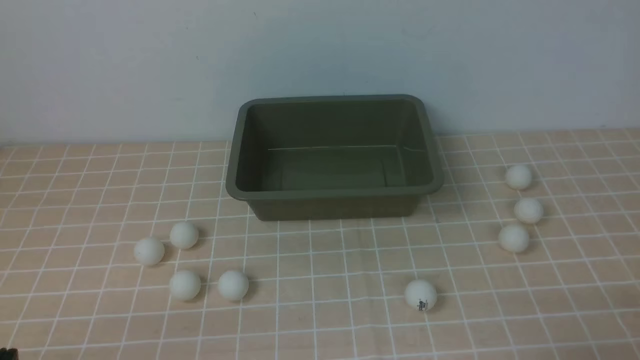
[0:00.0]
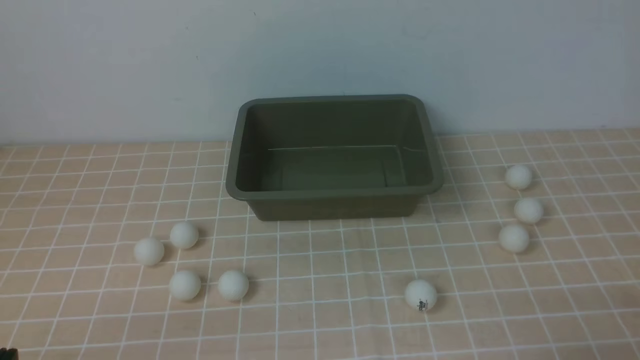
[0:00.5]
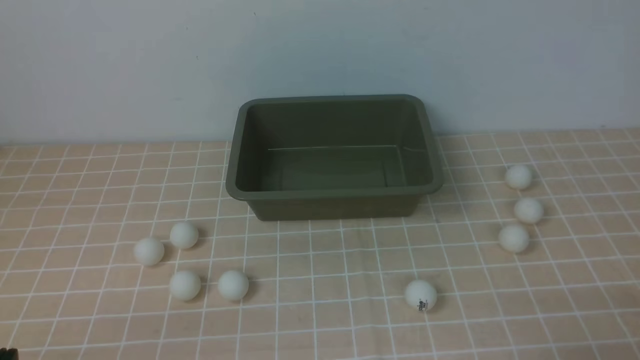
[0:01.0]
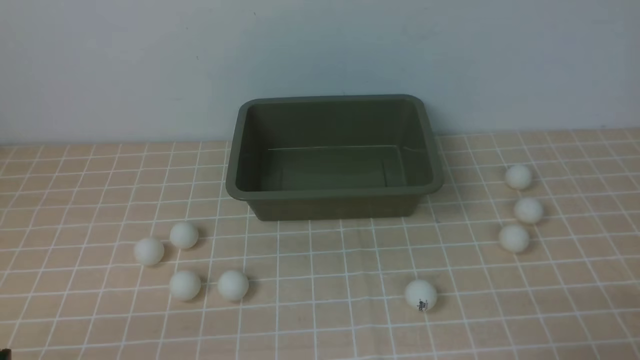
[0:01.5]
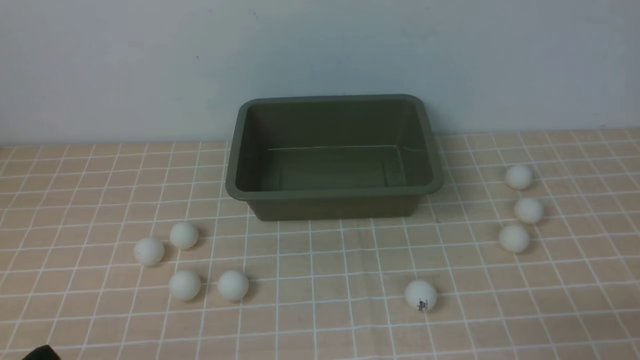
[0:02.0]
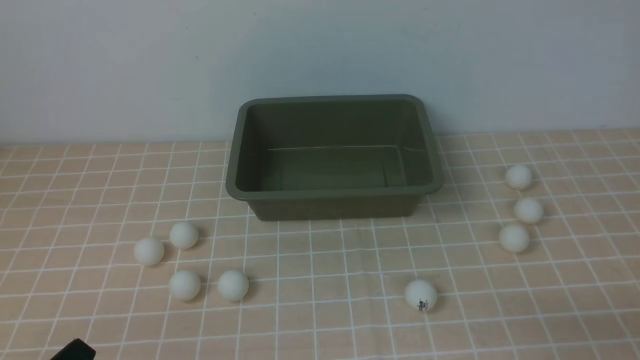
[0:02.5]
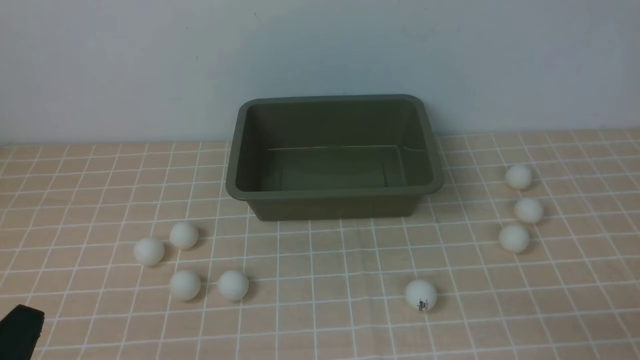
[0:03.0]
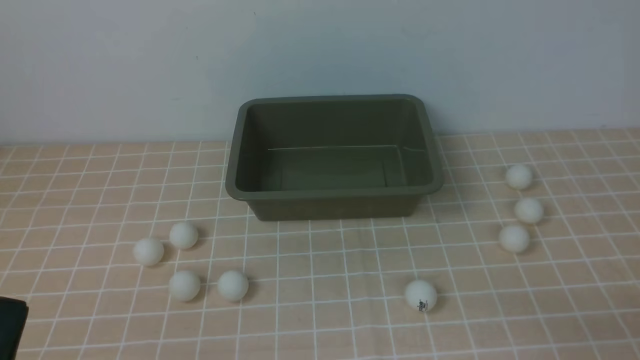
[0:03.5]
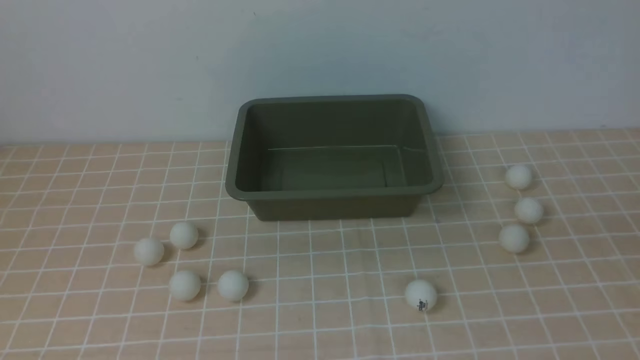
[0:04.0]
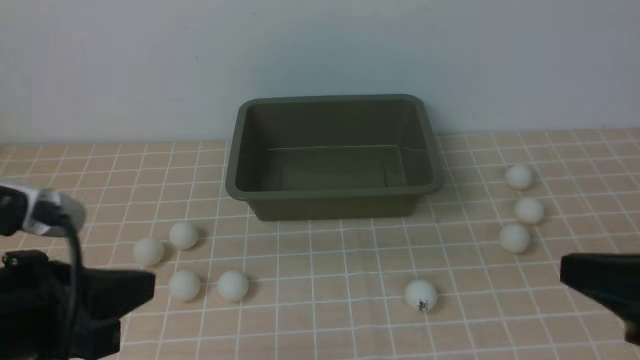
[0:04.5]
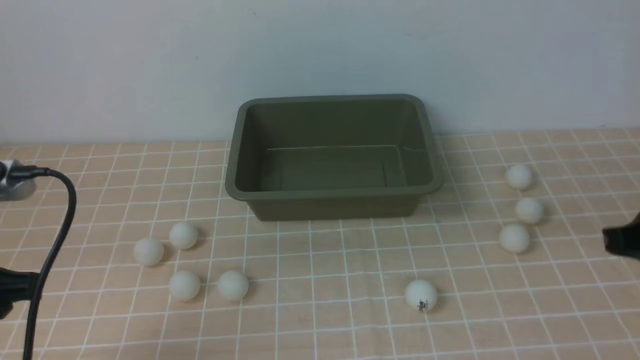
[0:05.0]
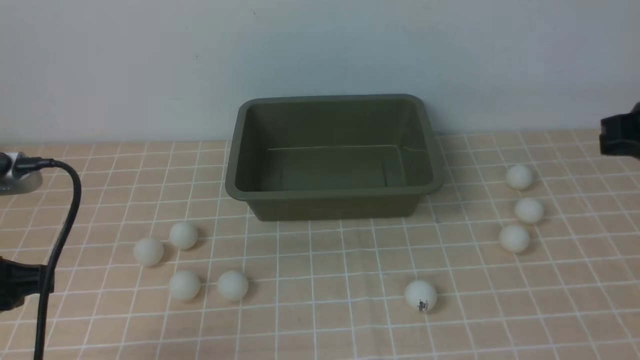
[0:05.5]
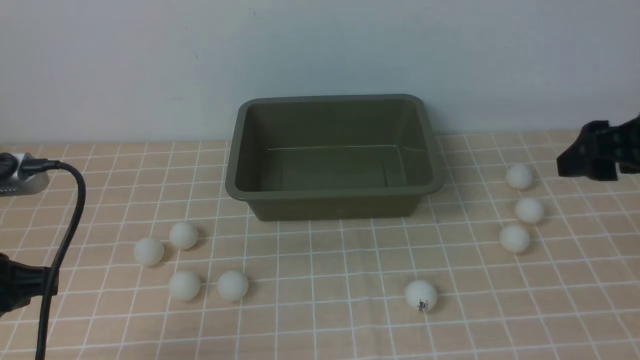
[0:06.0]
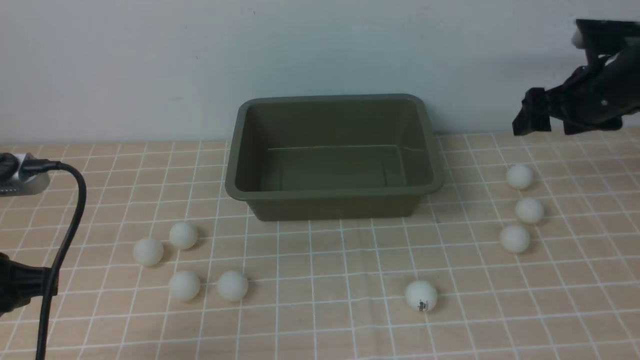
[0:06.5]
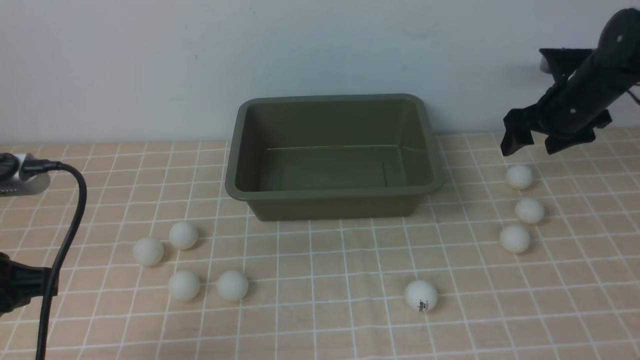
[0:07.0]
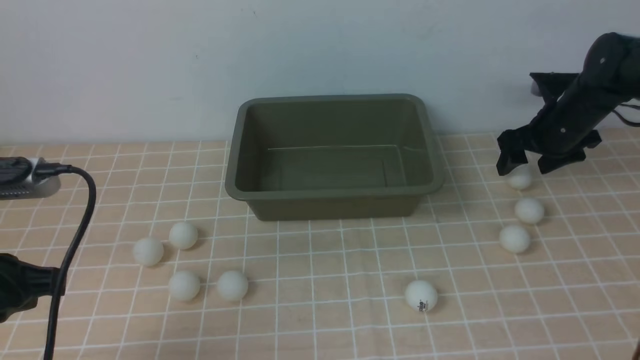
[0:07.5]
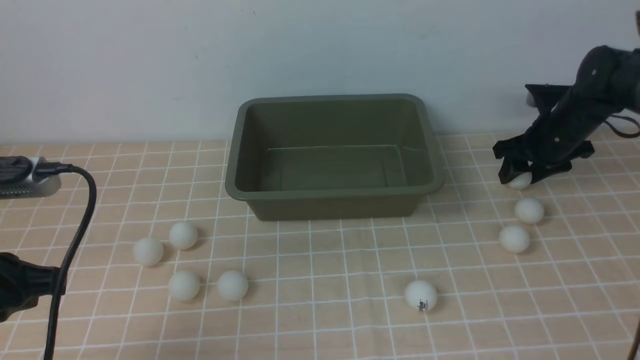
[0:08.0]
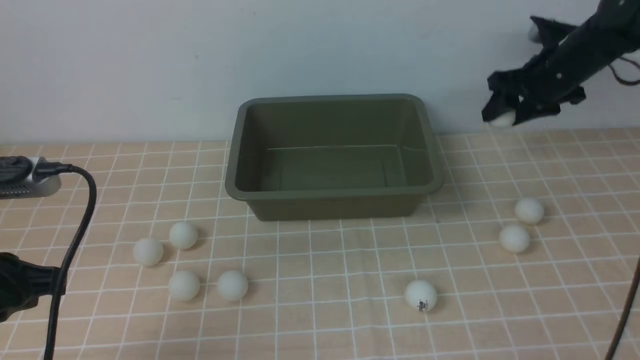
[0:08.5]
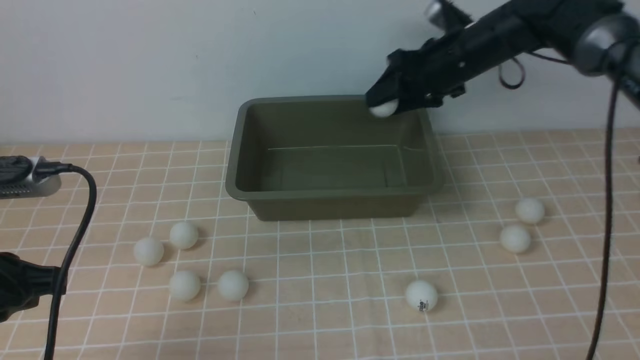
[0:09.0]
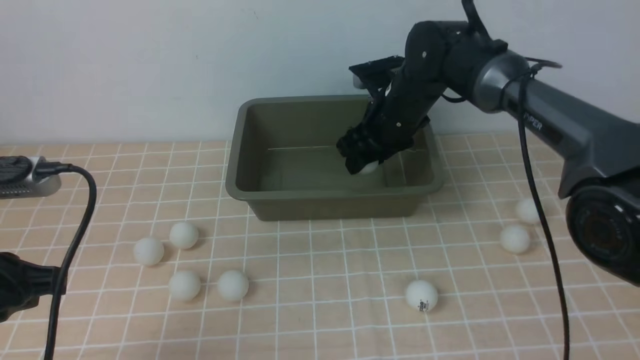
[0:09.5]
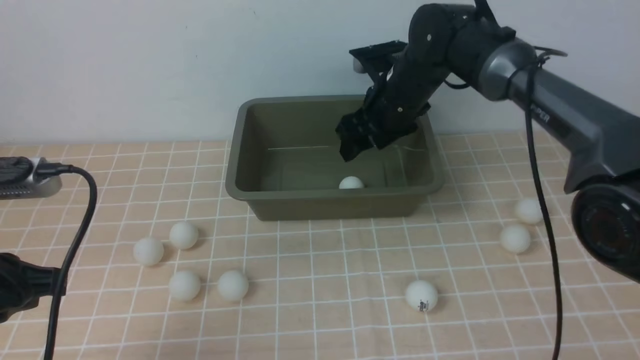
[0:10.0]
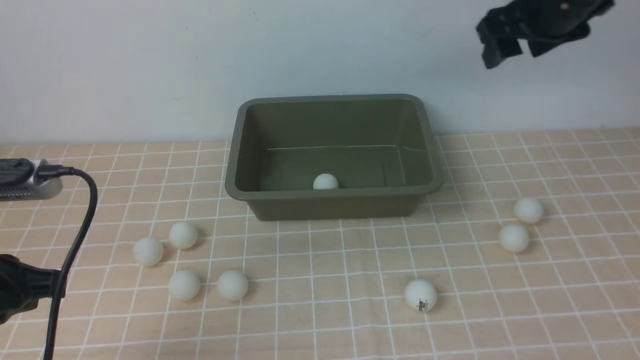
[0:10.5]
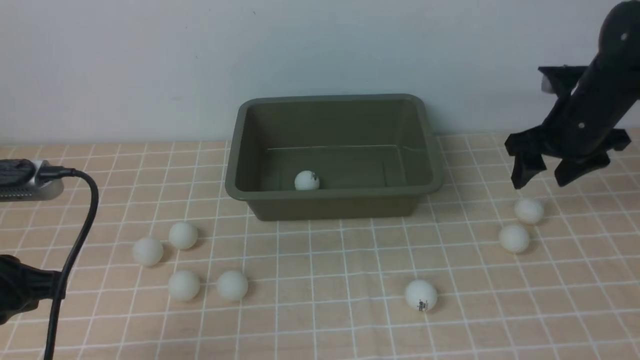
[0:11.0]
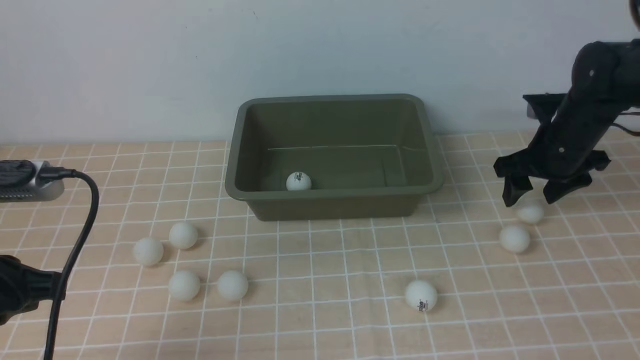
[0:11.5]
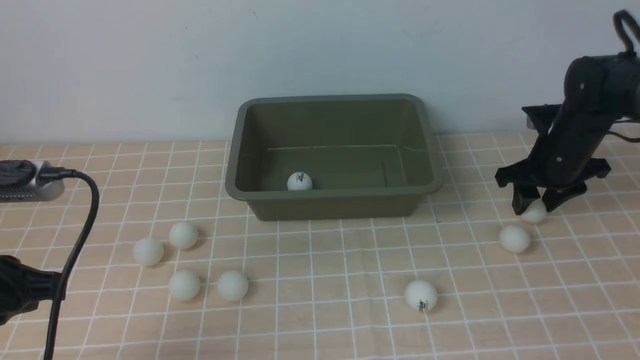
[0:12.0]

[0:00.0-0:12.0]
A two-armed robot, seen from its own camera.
Step, 0:00.0 to 0:08.5: use the right arm to clamp the table tennis ball closest to it.
Step, 0:09.0 to 0:09.5: use the right arm to put the table tennis ball into the box.
0:04.0 to 0:06.0: The right gripper heads forward, covering roughly 25 cm, and opens up. The left gripper travels forward by about 10 cm.
0:06.0 to 0:08.0: The right gripper moves forward and downward, about 25 cm.
0:08.0 to 0:10.0: The right gripper heads to the left and upward, covering some 25 cm.
0:10.0 to 0:12.0: The right gripper is displaced to the right and downward by about 20 cm.

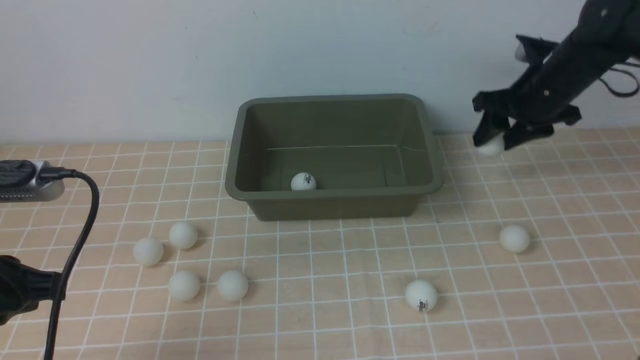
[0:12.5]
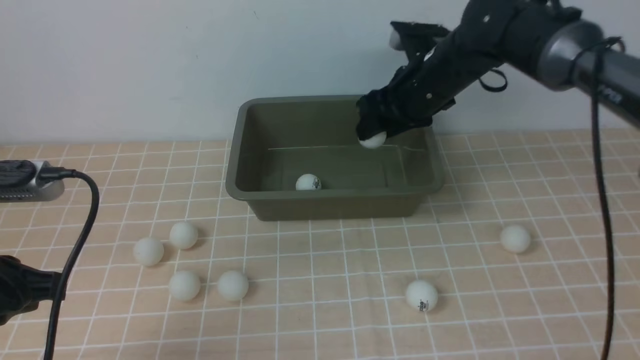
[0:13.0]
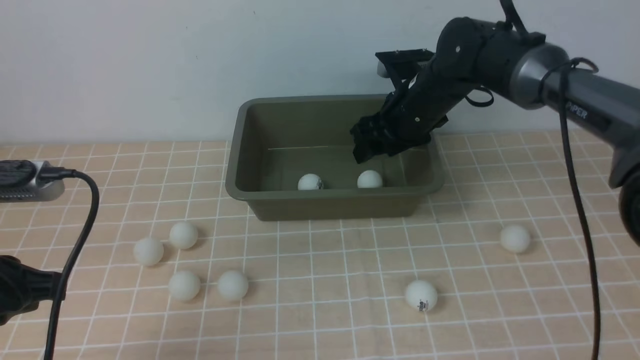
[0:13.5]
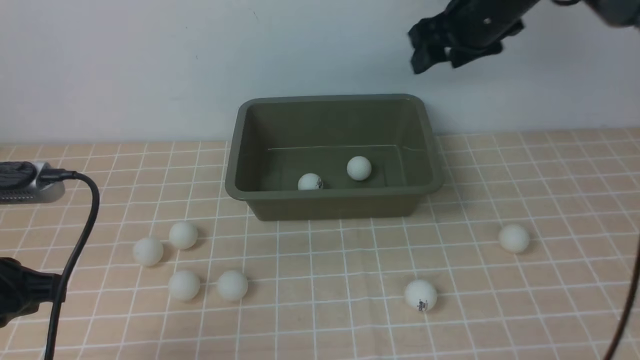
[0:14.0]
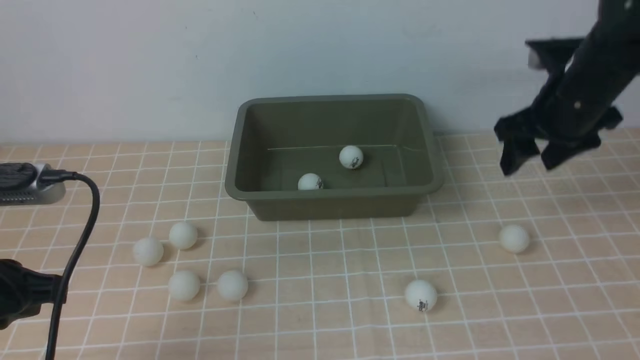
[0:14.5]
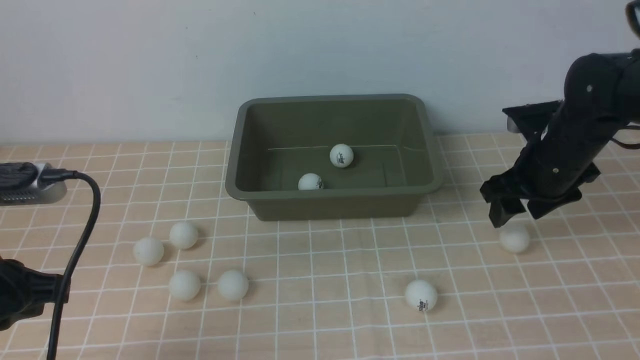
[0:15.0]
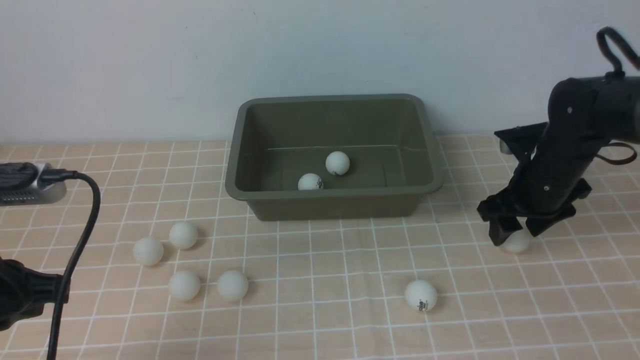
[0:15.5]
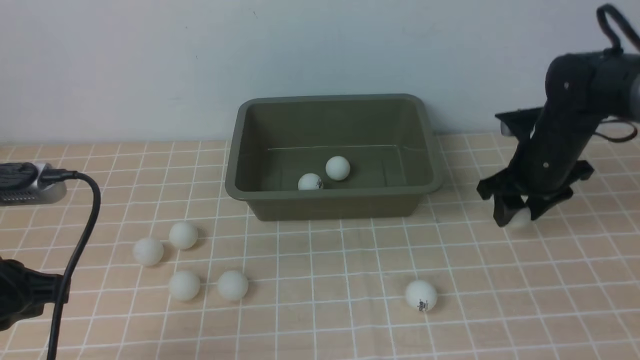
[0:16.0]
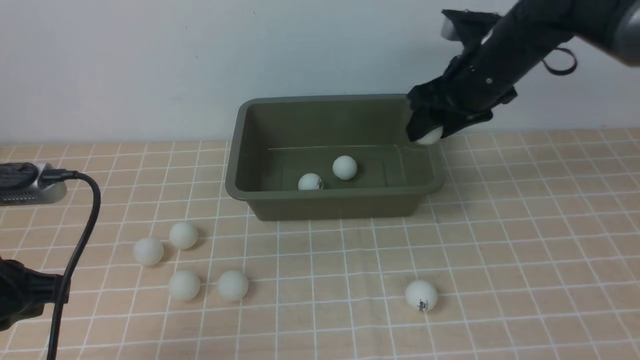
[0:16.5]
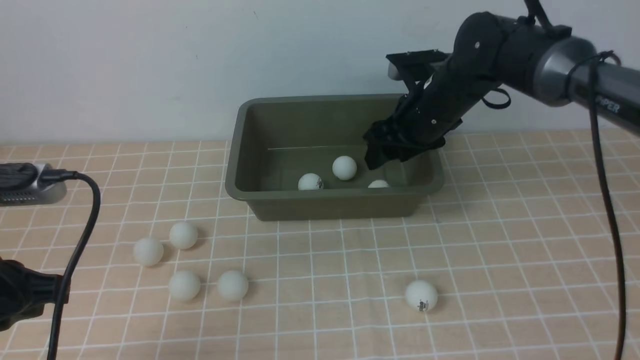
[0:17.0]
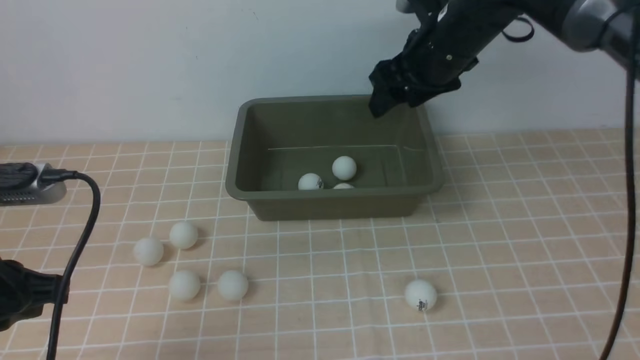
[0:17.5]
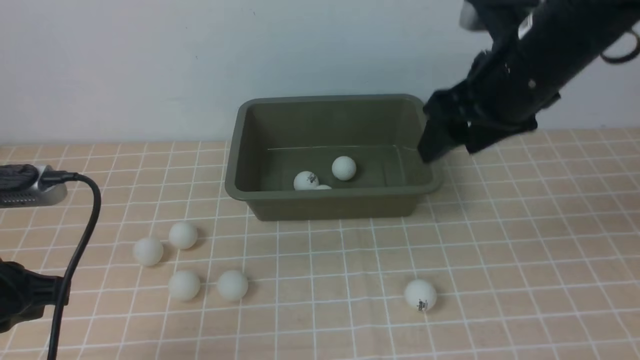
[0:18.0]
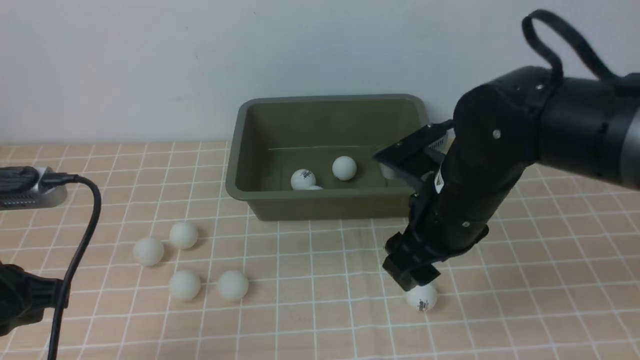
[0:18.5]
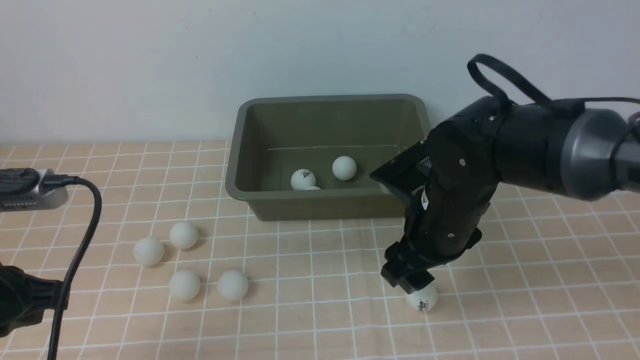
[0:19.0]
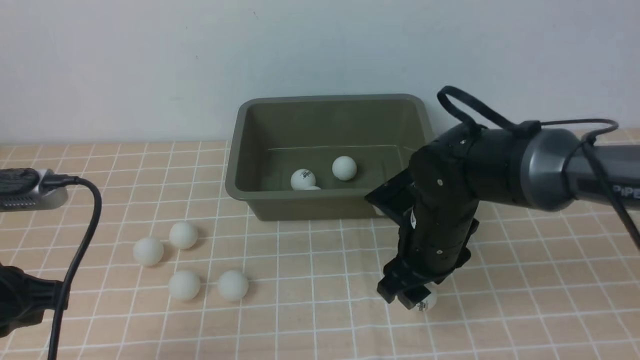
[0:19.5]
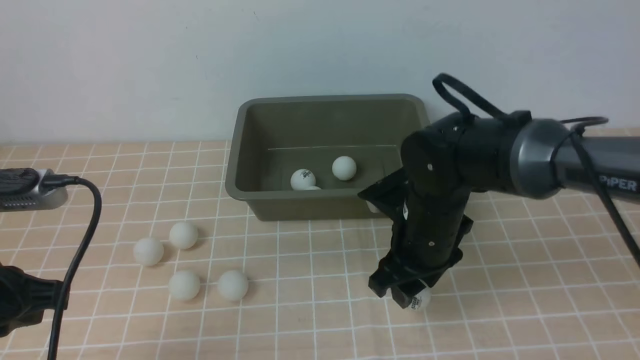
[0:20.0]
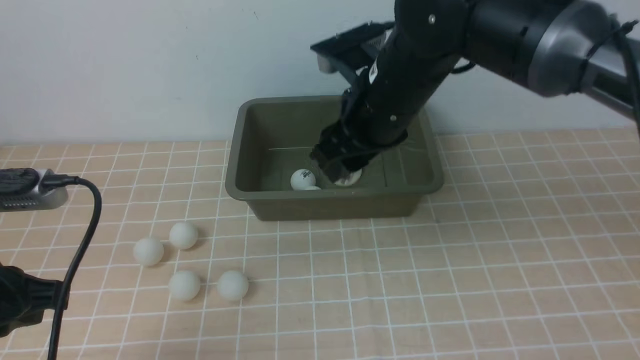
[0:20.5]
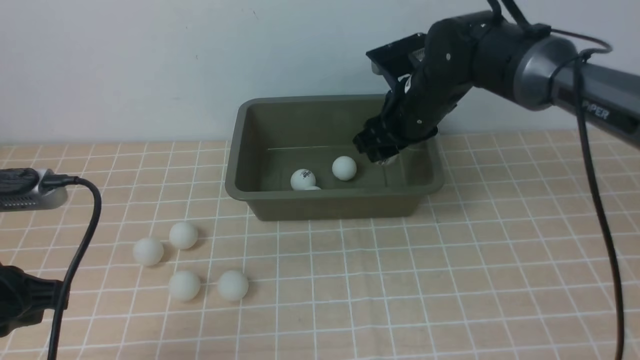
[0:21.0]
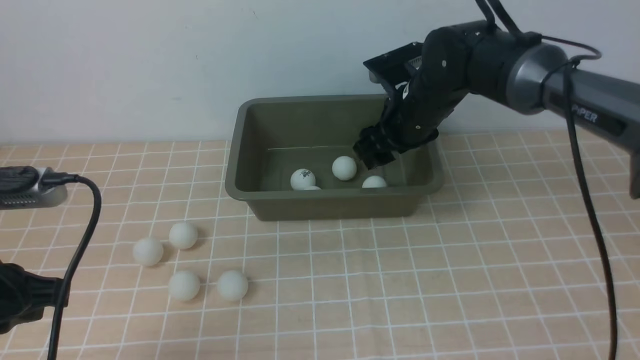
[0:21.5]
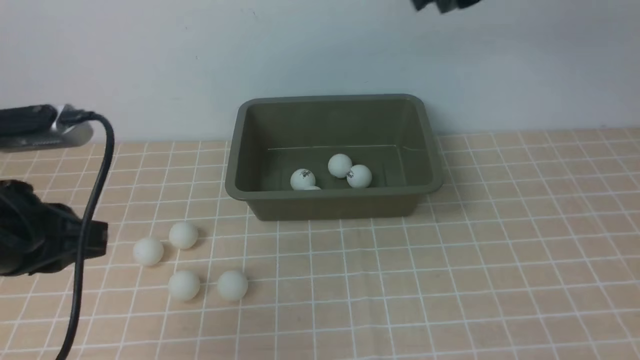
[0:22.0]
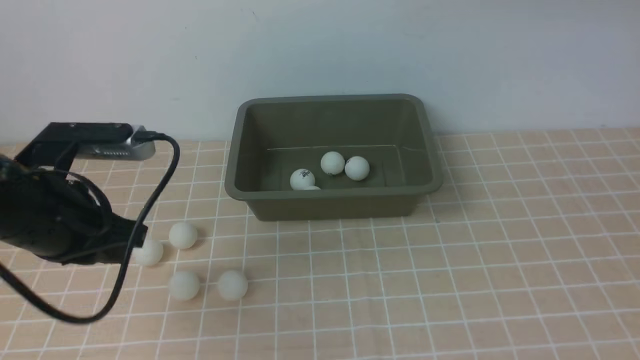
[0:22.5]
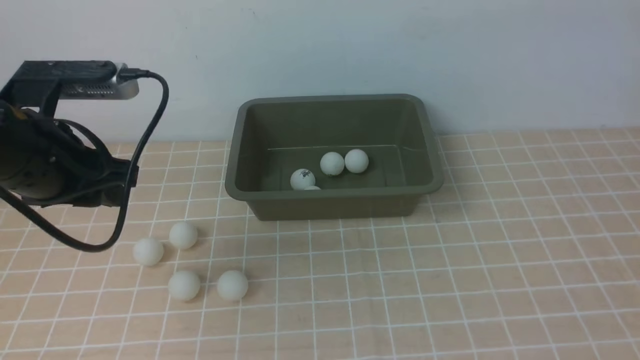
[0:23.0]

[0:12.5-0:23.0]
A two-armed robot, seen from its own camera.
Step, 0:13.0 to 0:13.5: use the right arm to put the table tennis ball into the box.
Step, 0:14.5 to 0:16.0: use the right arm to clamp the table tennis ball closest to it.
Step, 0:16.5 to 0:17.5: use the right arm to put the table tennis ball into the box.
Step, 0:18.0 to 0:20.0: use the right arm to clamp the table tennis ball closest to it.
Step, 0:20.5 to 0:21.5: use the right arm to put the table tennis ball into the box.
0:12.5 to 0:14.5: The right gripper moves backward, about 5 cm, and goes to the left and returns, roughly 15 cm each way.
0:14.5 to 0:16.5: The right gripper goes about 10 cm to the left, and reaches some 10 cm downward, then returns.
0:16.5 to 0:19.0: The right gripper is displaced backward, downward and to the left by some 15 cm.
0:19.0 to 0:21.0: The right gripper goes some 15 cm forward.
0:21.0 to 0:23.0: The left gripper heads forward, covering about 10 cm, and opens its fingers, while the right gripper is displaced backward, upward and to the right by roughly 35 cm, and closes up.
